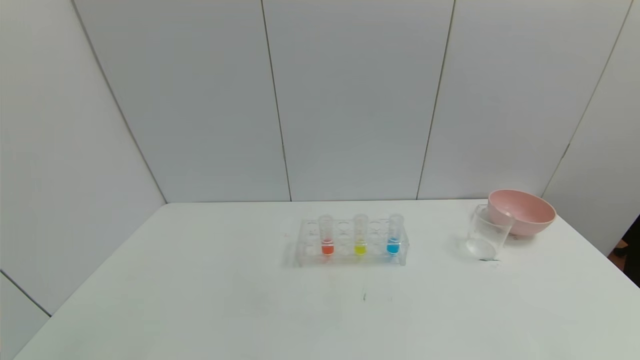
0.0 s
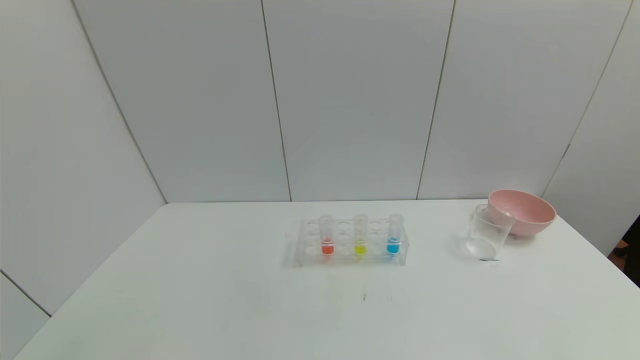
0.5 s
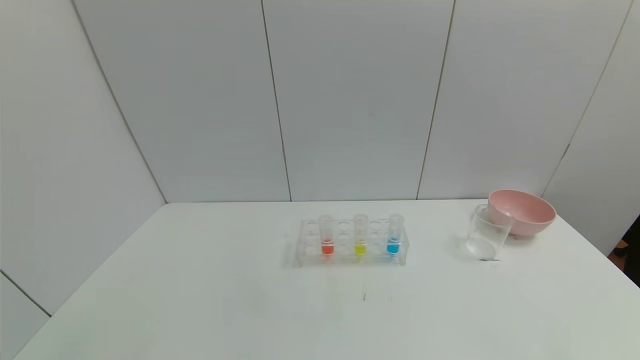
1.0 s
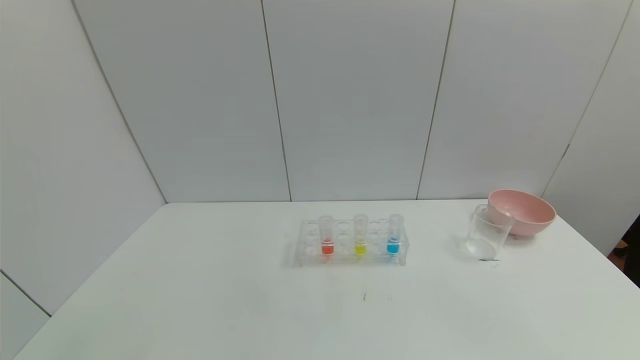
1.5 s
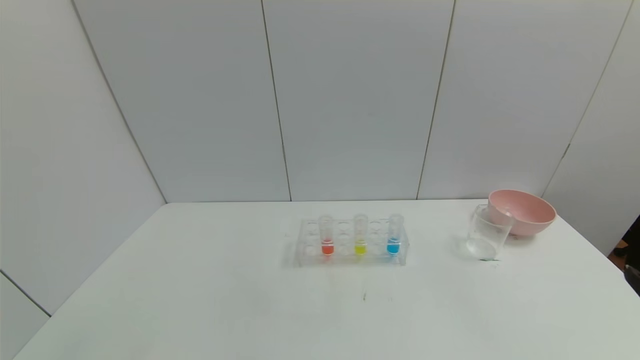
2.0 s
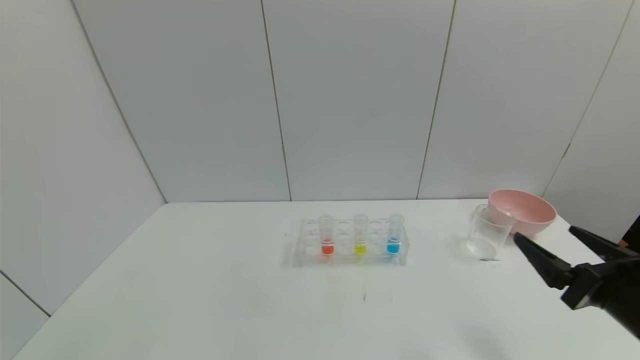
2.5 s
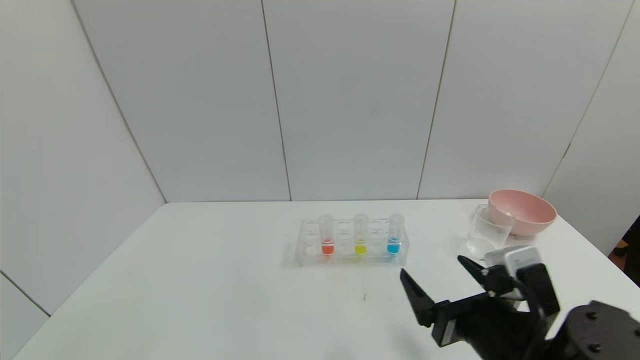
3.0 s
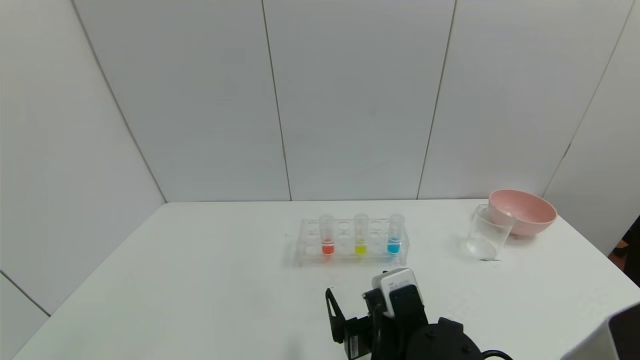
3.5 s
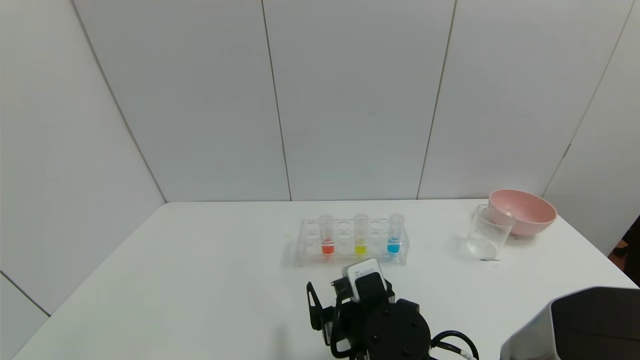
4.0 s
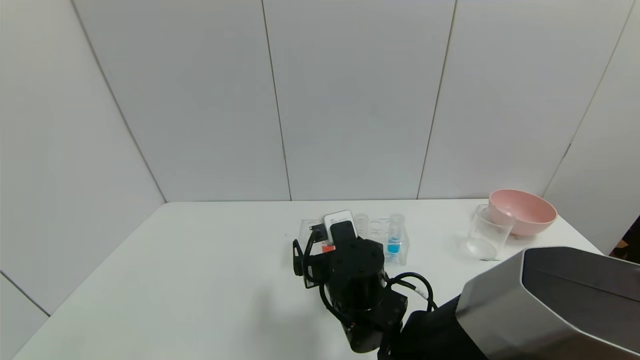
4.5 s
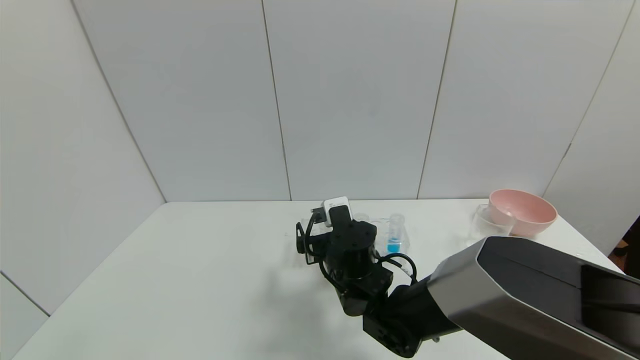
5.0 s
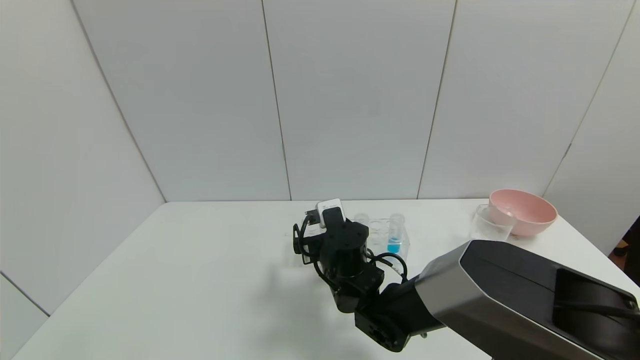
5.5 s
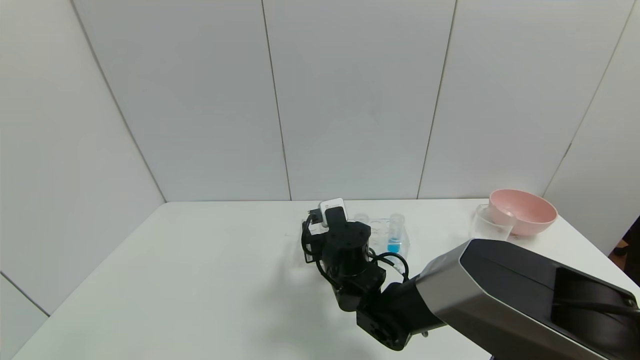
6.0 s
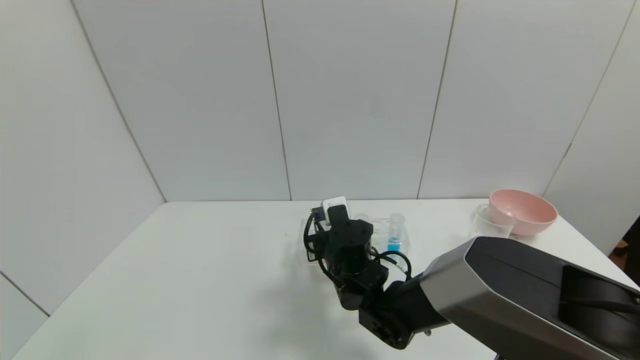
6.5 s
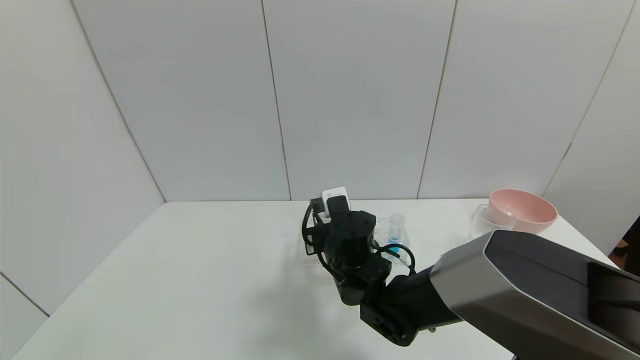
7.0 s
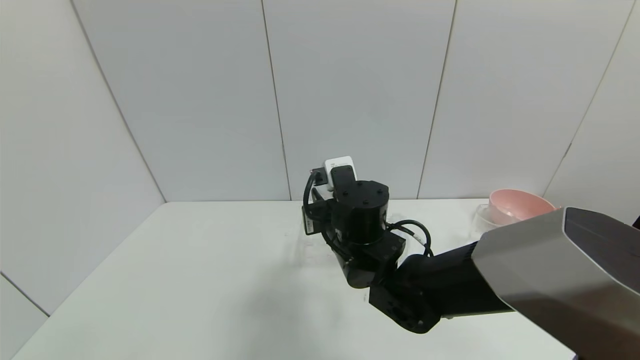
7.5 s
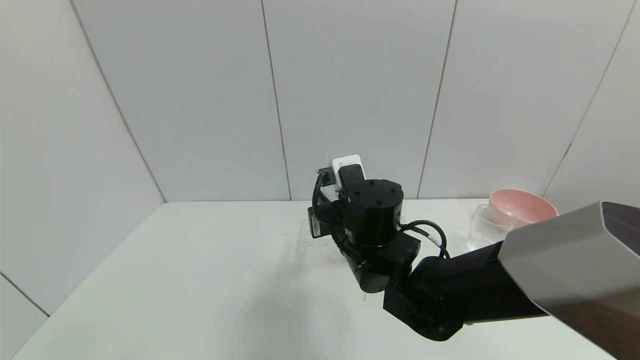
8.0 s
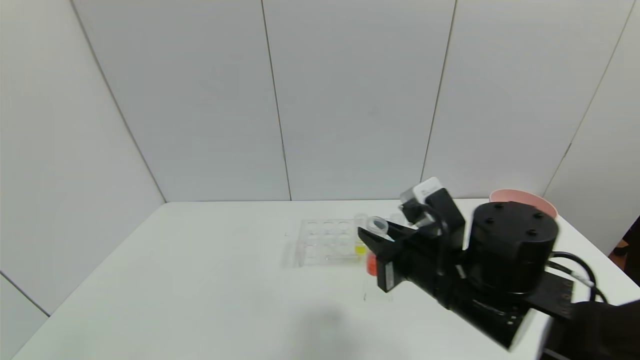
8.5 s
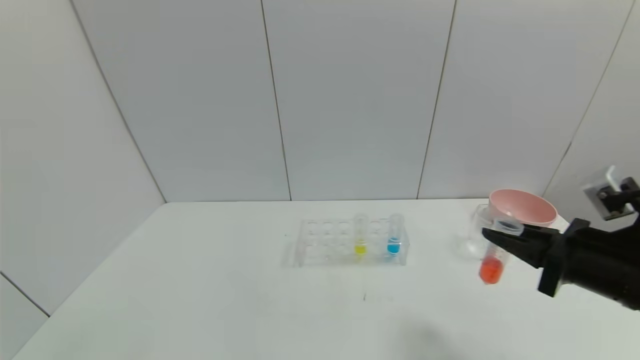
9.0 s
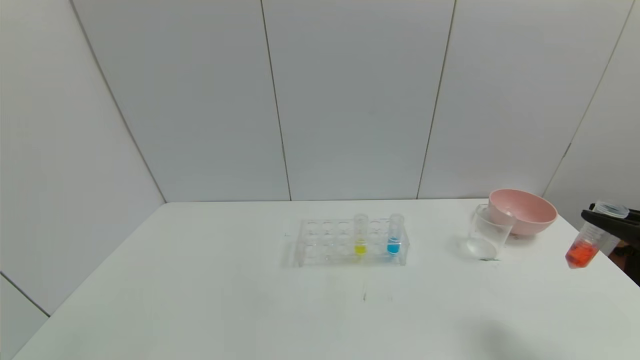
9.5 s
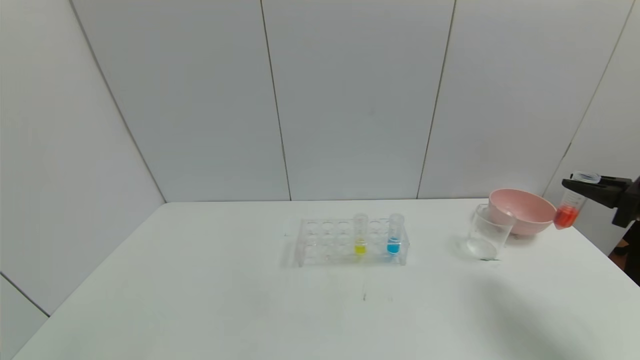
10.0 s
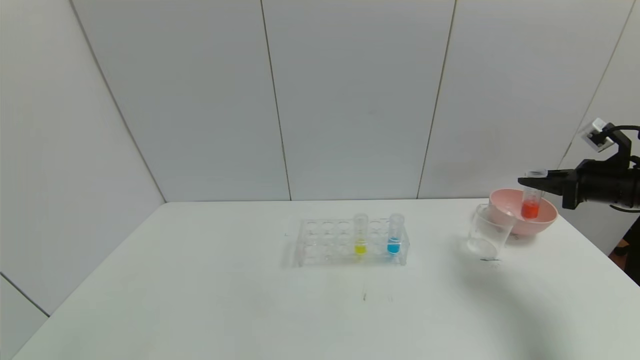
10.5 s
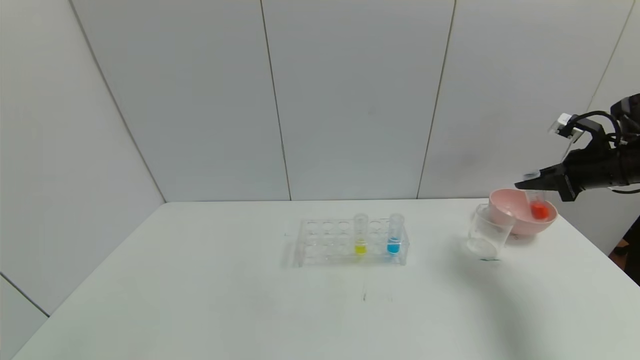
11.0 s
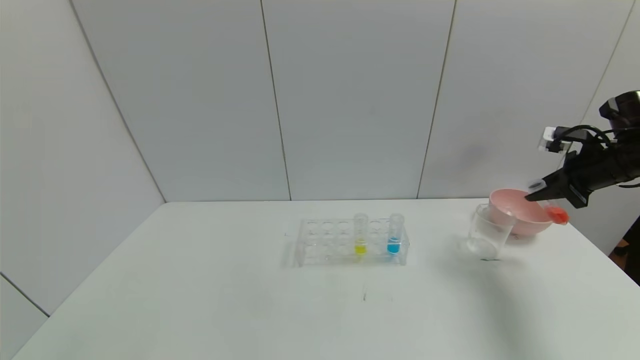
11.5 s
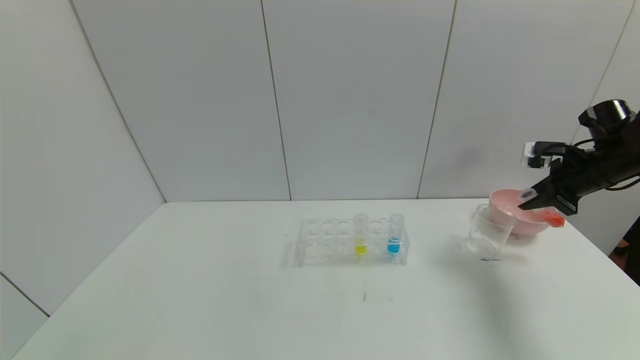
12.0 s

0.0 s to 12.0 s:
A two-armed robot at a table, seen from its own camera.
Task of the whole recording: pick up the test tube with red pigment and the test tube with blue pigment by grippers and pour them into the container.
Step, 0.0 to 6.5 s: Grasp the red reagent with the right gripper.
2.0 to 4.0 s: The right gripper goes about 35 cm to the left and forward.
4.0 to 6.0 s: The right gripper is displaced forward by roughly 15 cm, and closes.
6.0 to 8.0 s: The right gripper goes roughly 10 cm upward, and closes its fingers.
8.0 to 10.0 s: The right gripper goes about 40 cm to the right.
10.0 to 12.0 s: The right gripper shifts approximately 15 cm forward.

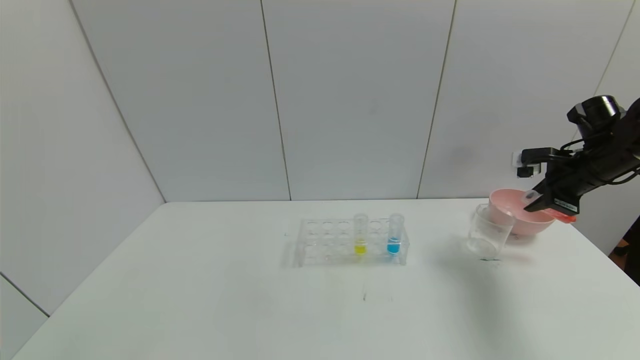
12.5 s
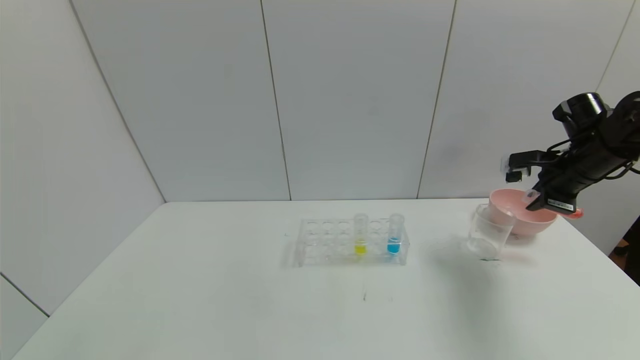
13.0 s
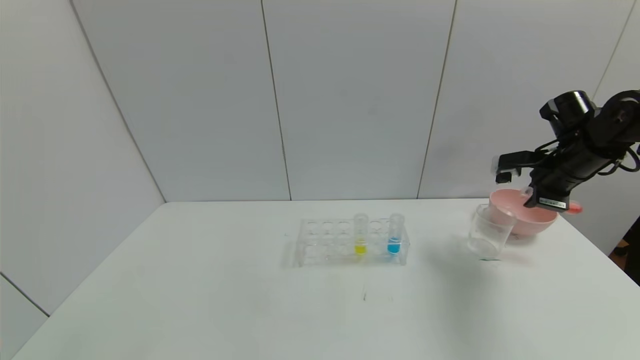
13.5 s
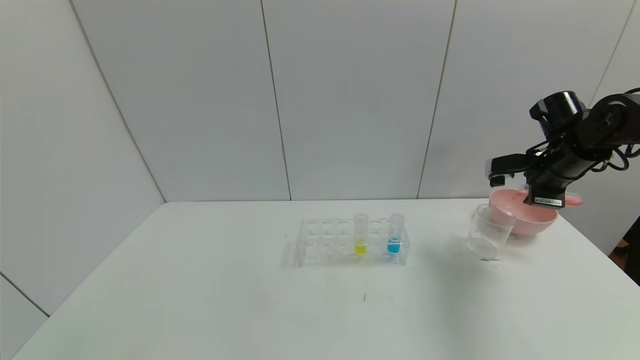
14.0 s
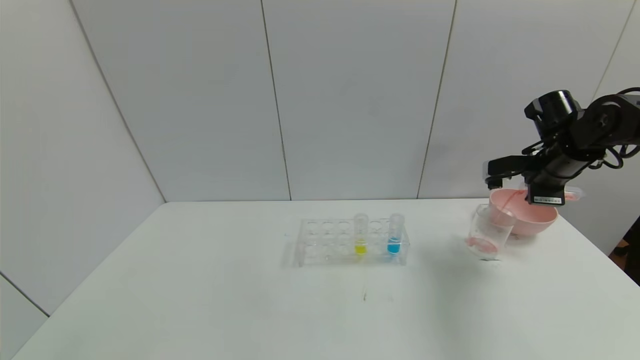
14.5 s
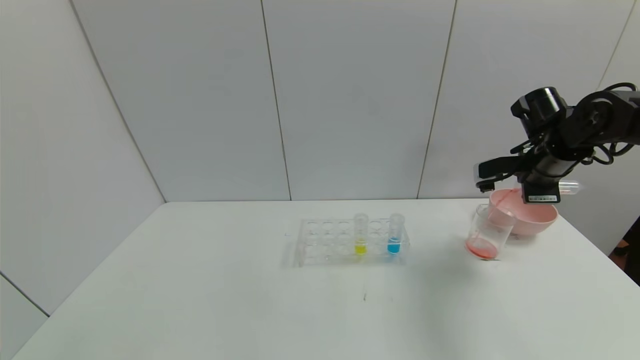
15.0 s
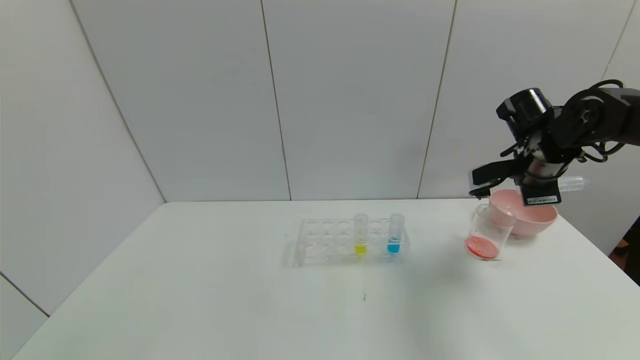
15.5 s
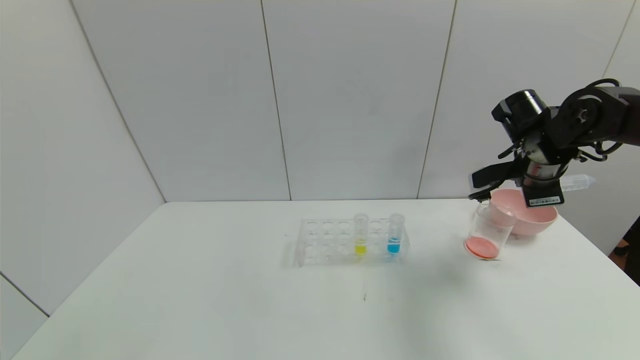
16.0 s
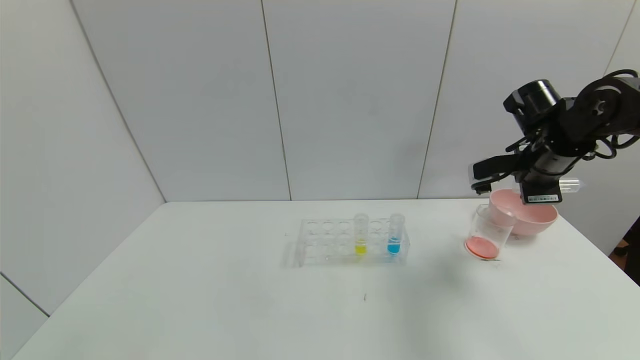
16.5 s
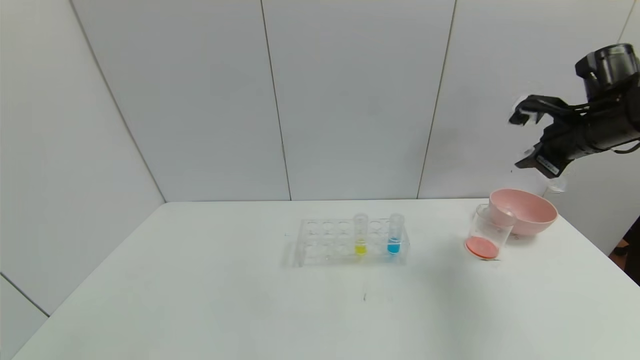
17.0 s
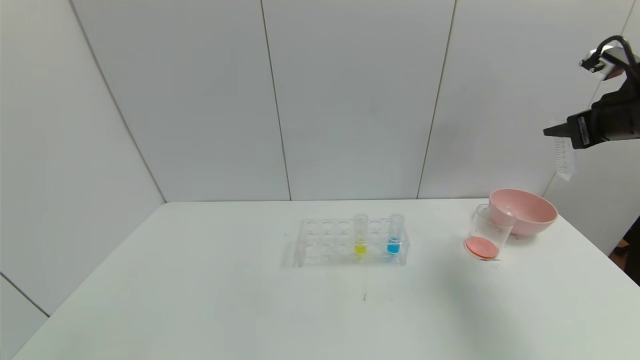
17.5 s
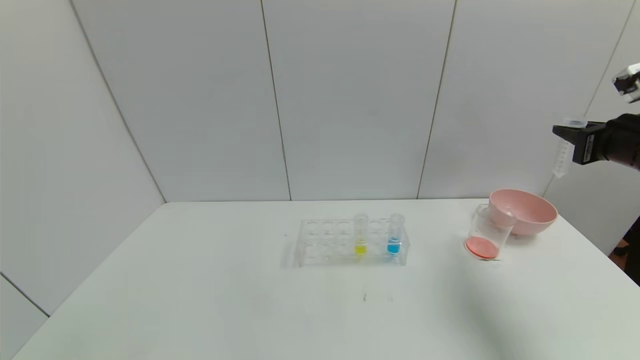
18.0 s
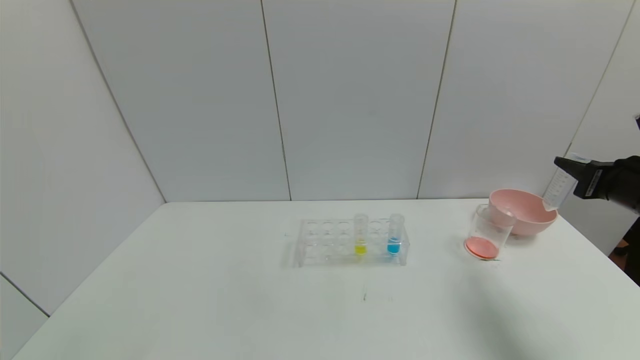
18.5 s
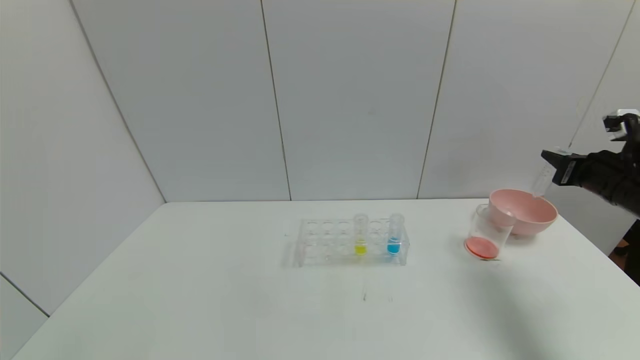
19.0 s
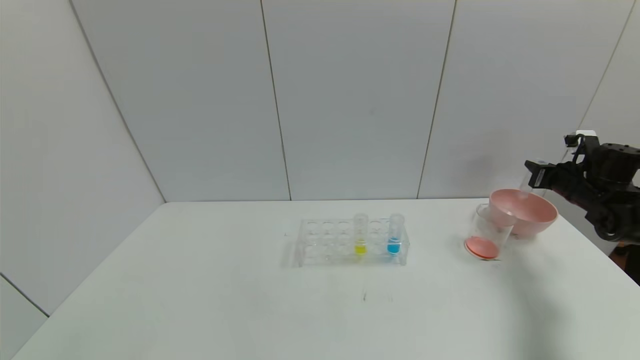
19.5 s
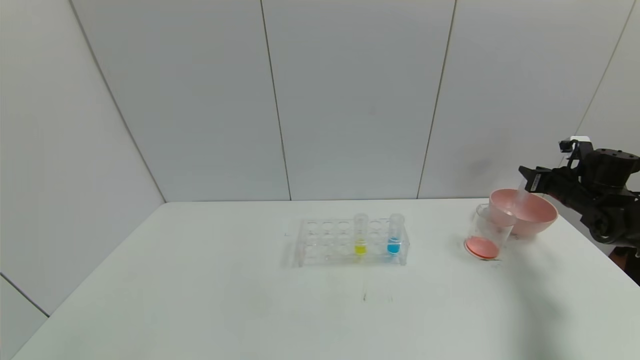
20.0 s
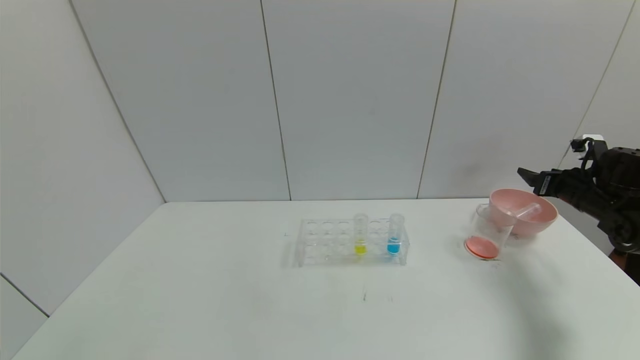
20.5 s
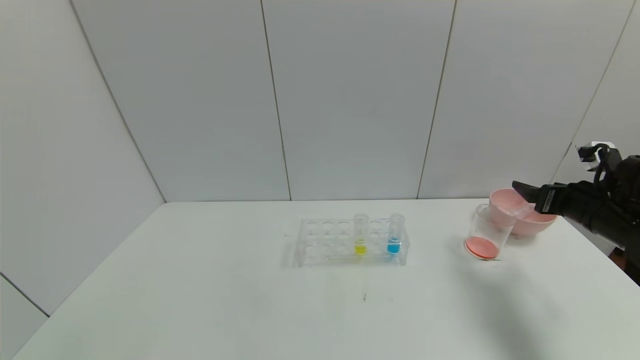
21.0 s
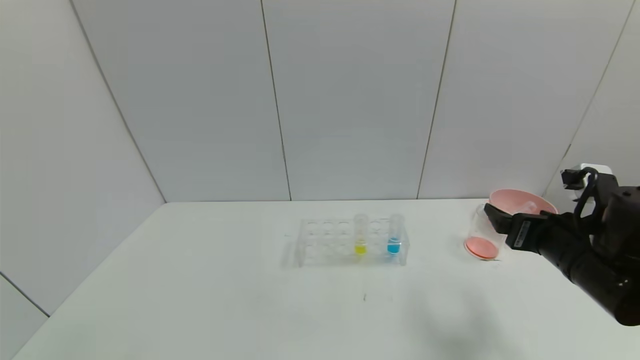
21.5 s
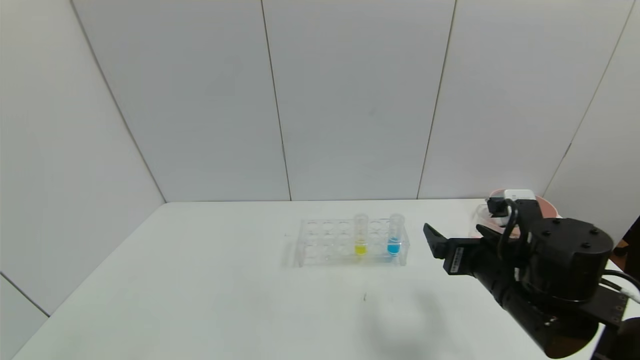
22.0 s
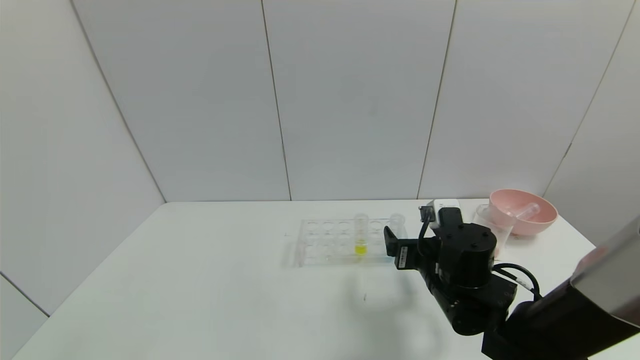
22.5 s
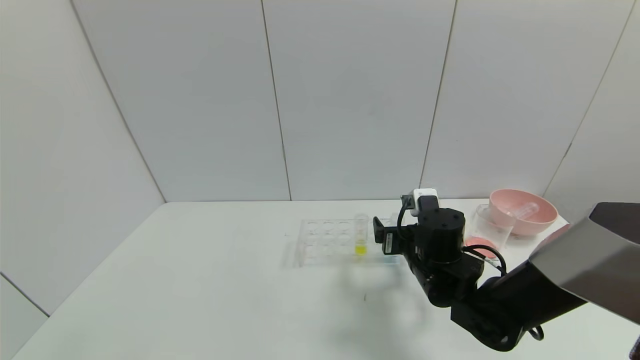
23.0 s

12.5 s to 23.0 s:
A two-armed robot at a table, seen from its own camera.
Task of the whole recording: pick up the test tube with red pigment and the test tube with blue pigment by grippers and pour them into the container.
Step, 12.5 to 15.5 s: Pour the red reagent into the graduated cylinder with the right gripper.
Step, 16.0 to 20.5 s: Place the test tube into the bowl with the right gripper.
12.5 to 14.5 s: The right gripper moves to the left, about 5 cm.
14.5 to 16.5 s: The right gripper ends up roughly 5 cm from where it was.
16.5 to 19.0 s: The right gripper goes approximately 10 cm to the right.
19.0 to 21.0 s: The right gripper goes forward and returns, roughly 10 cm each way, and opens up.
21.0 to 23.0 s: The right gripper moves to the left, some 25 cm.
